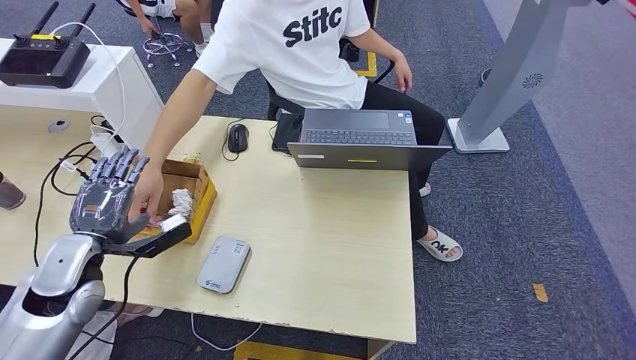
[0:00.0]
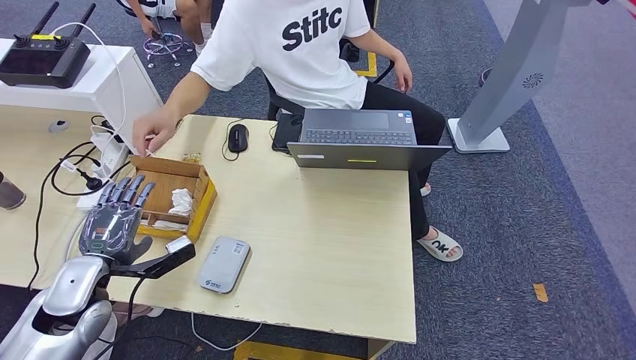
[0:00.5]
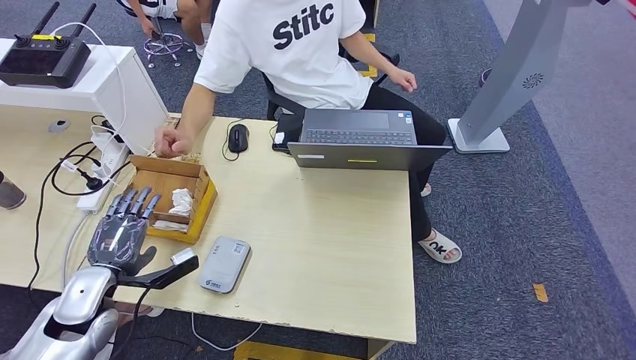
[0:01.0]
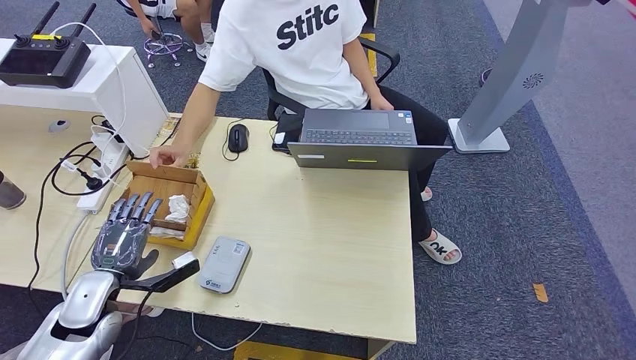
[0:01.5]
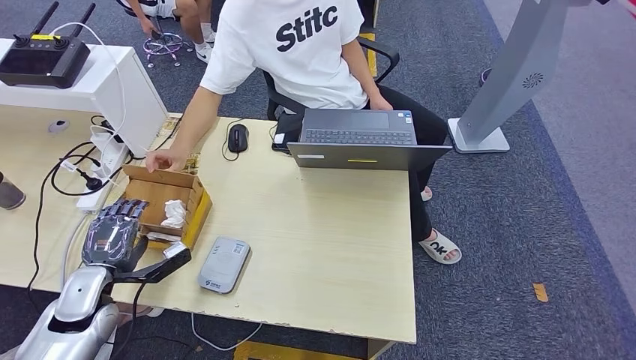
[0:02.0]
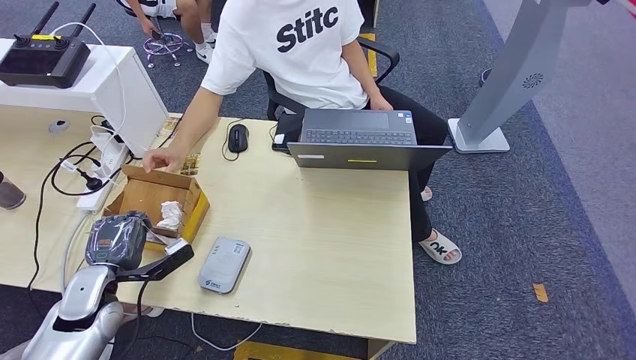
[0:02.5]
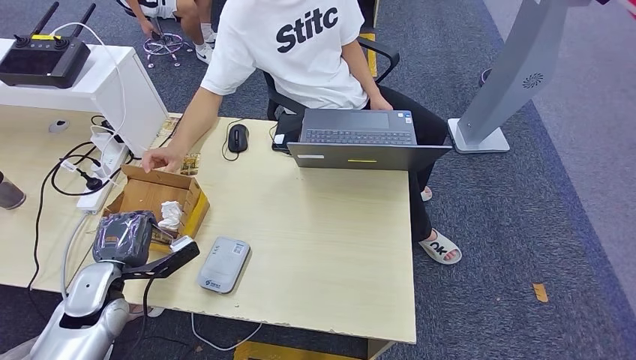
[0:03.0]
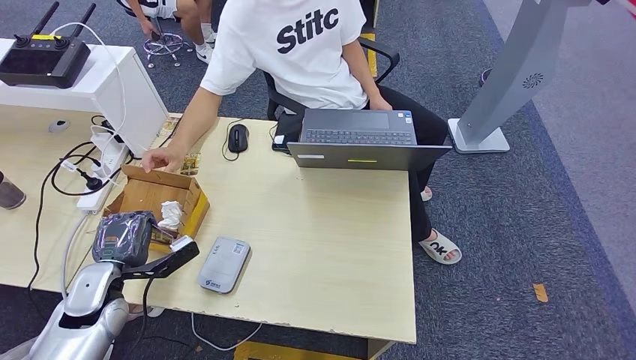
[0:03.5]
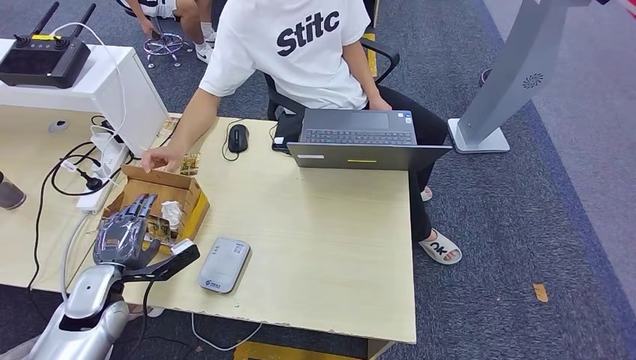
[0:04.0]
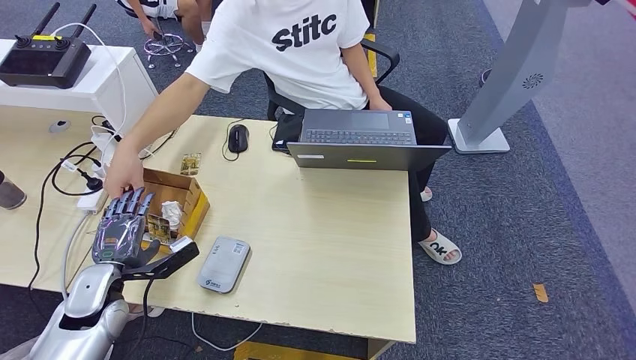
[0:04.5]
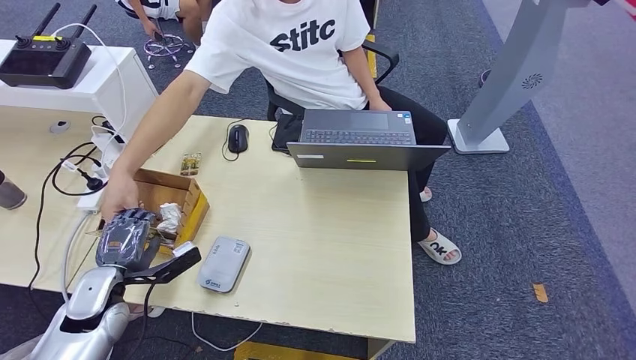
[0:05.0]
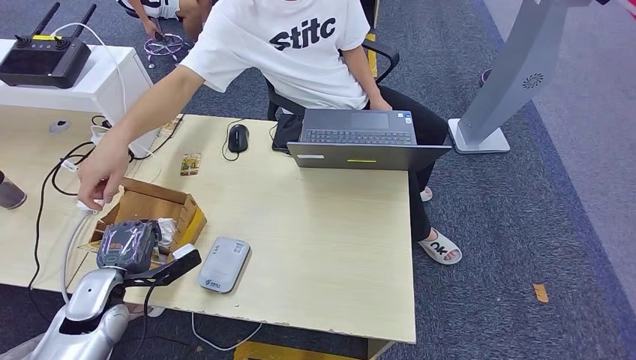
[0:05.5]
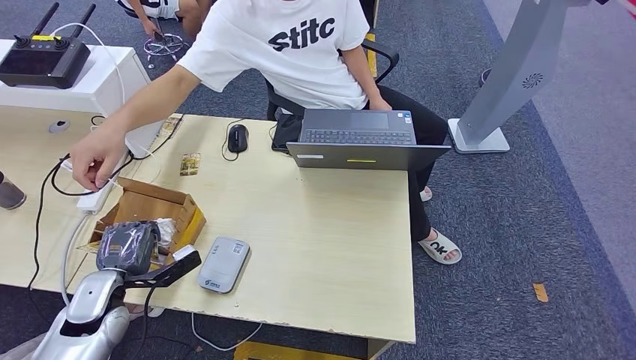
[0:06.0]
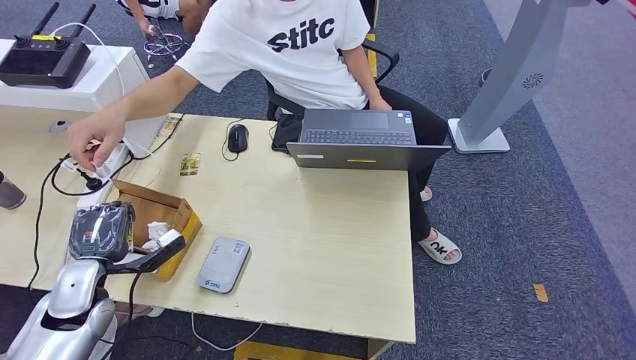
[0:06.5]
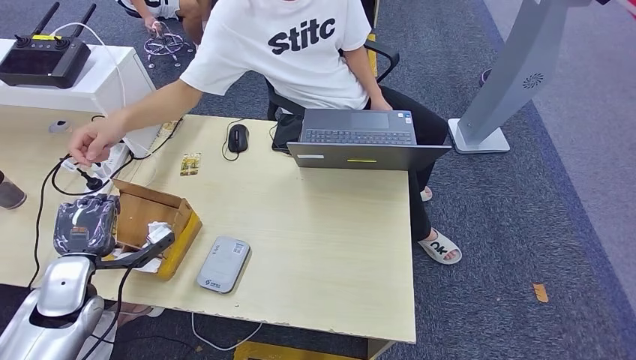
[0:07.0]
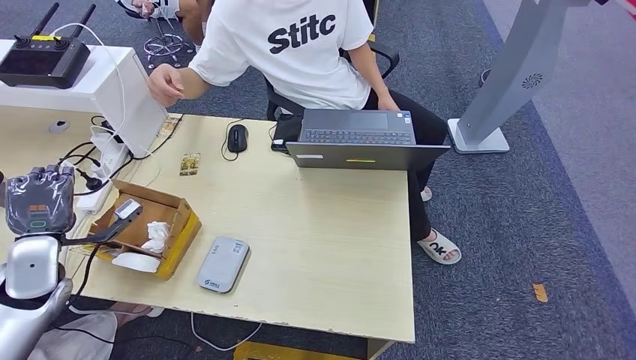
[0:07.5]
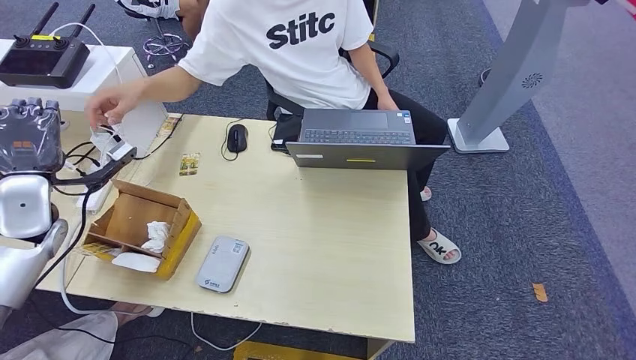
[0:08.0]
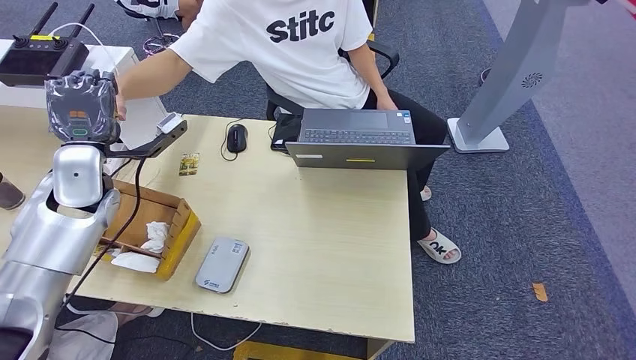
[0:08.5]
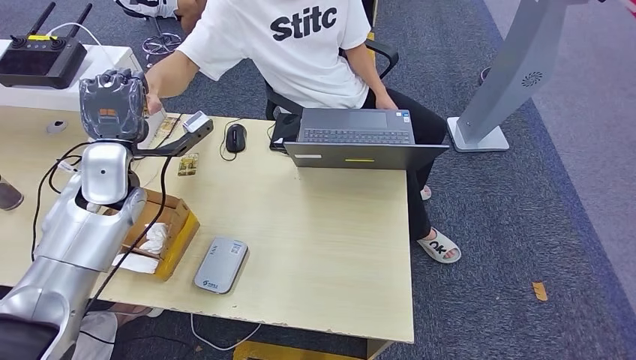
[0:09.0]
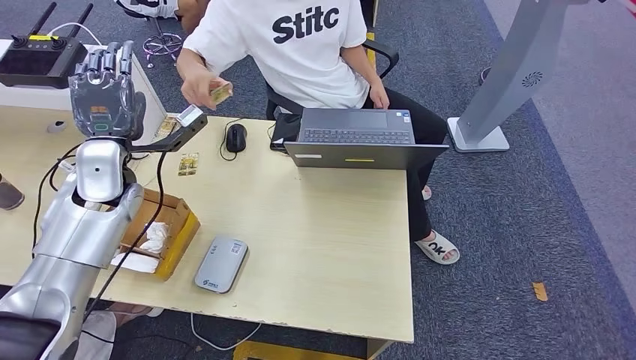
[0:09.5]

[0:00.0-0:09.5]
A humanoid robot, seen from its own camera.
Step, 0:04.5 to 0:07.5: Pick up the room key from the key card box.
Step, 0:08.0 to 0:09.5: Hand the room key to the person.
0:00.0 to 0:02.0: The left hand moves downward, roughly 10 cm.
0:02.0 to 0:04.0: The hands stay close to where they were, moving slightly.
0:04.0 to 0:05.5: Neither hand changes place.
0:05.5 to 0:07.5: The left hand travels upward and to the left by about 10 cm.
0:07.5 to 0:09.5: The left hand travels to the right, forward and upward by about 20 cm.
